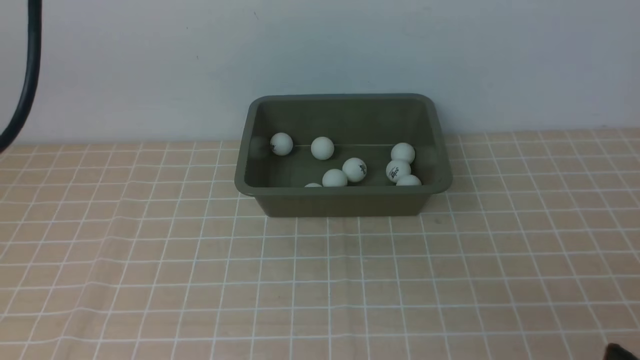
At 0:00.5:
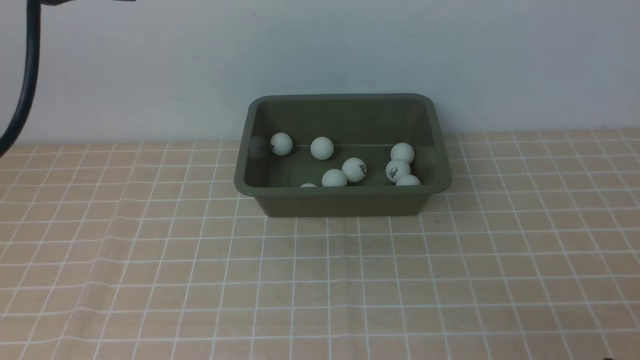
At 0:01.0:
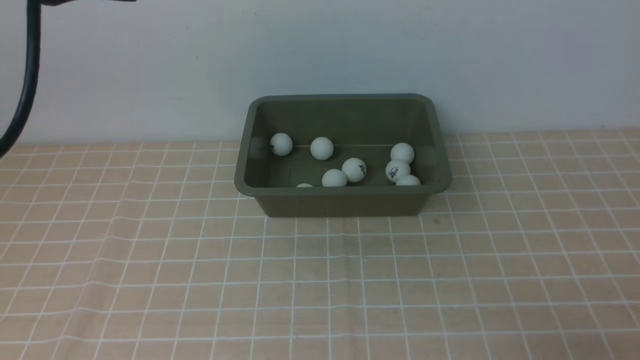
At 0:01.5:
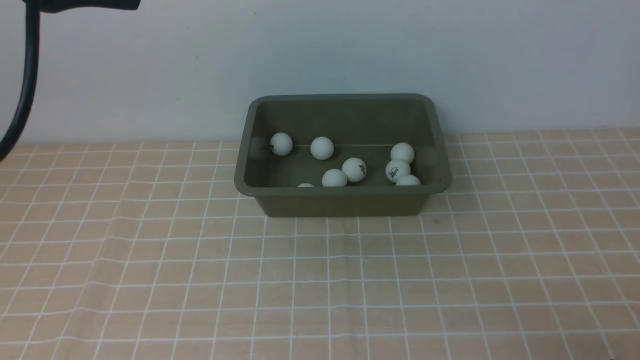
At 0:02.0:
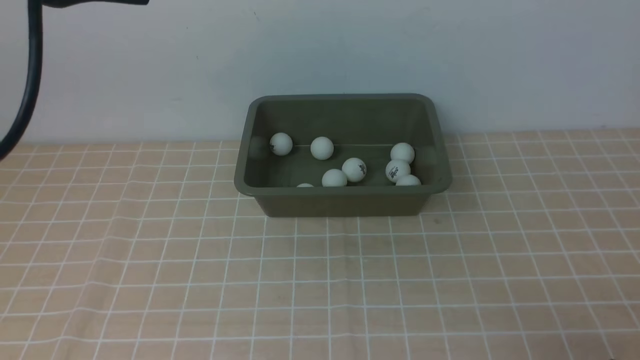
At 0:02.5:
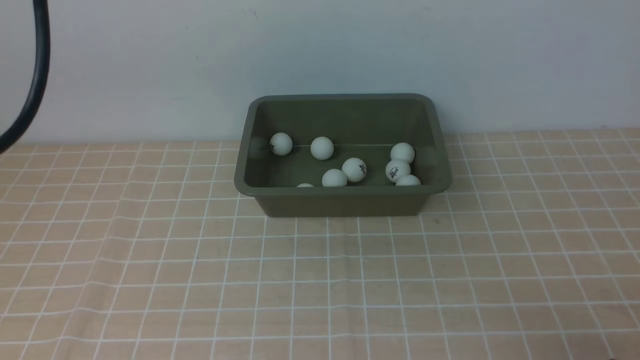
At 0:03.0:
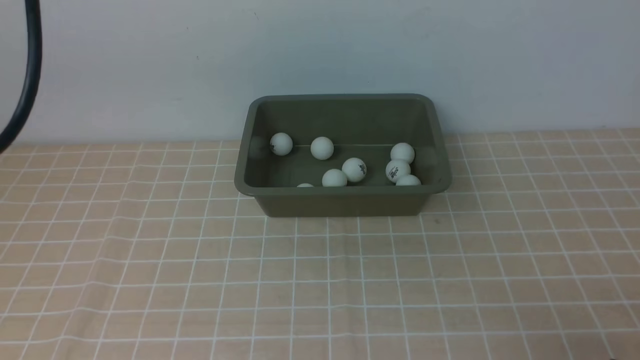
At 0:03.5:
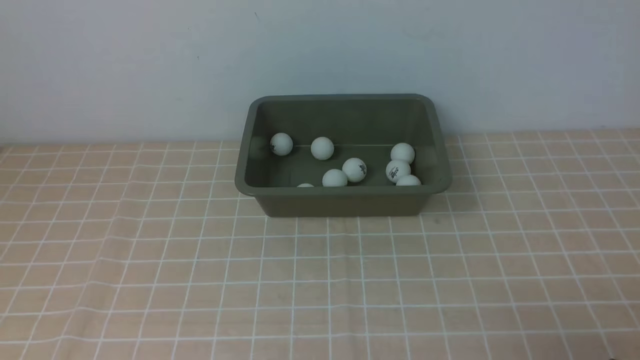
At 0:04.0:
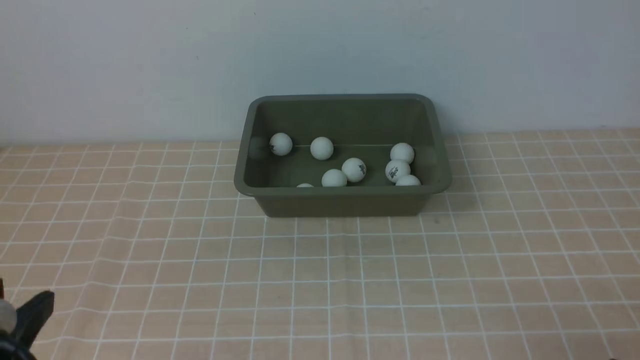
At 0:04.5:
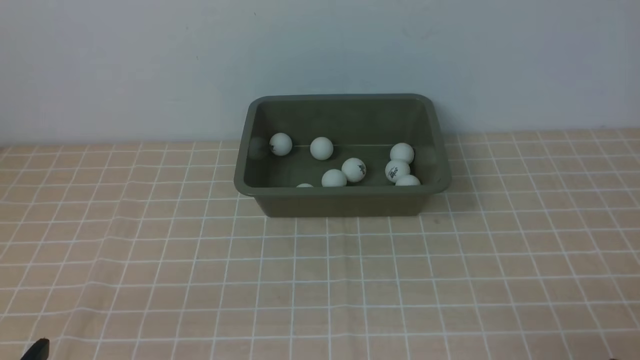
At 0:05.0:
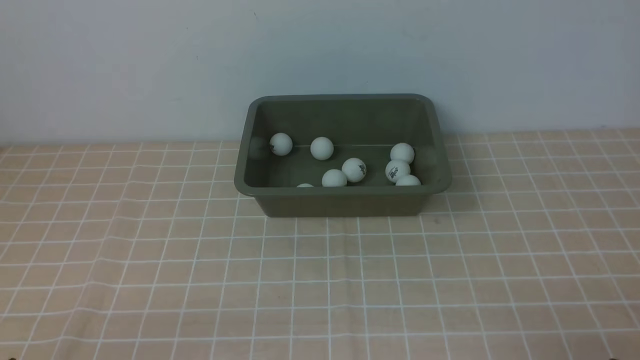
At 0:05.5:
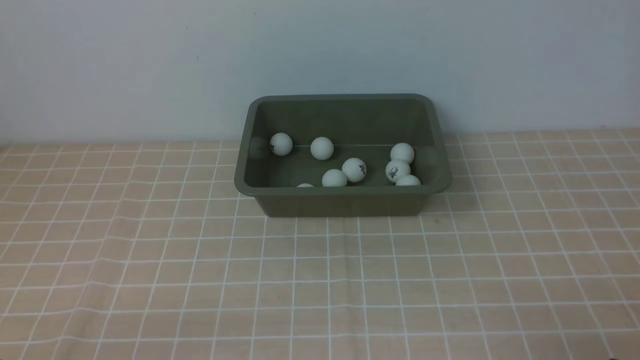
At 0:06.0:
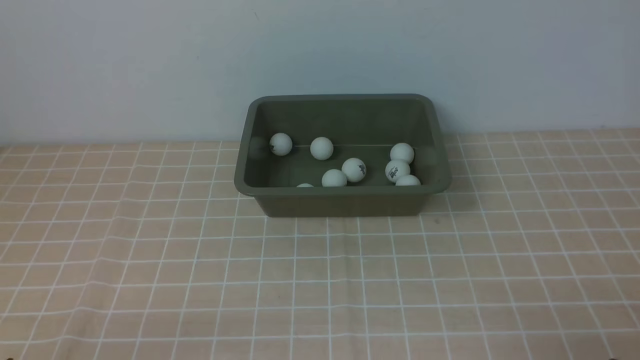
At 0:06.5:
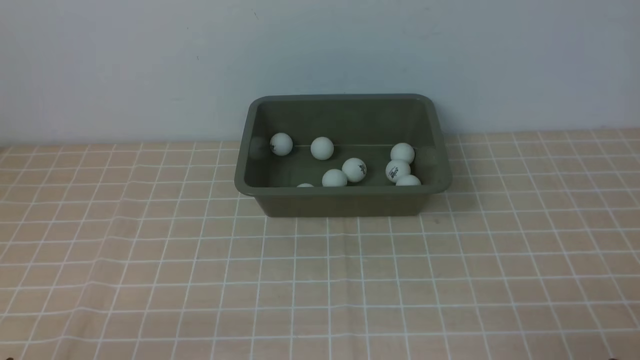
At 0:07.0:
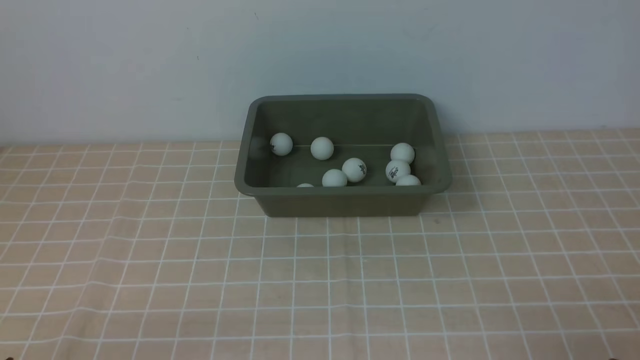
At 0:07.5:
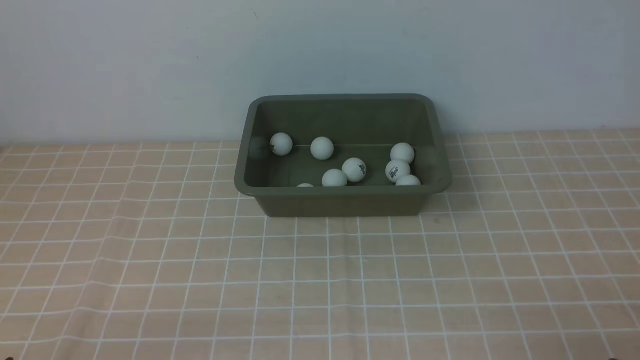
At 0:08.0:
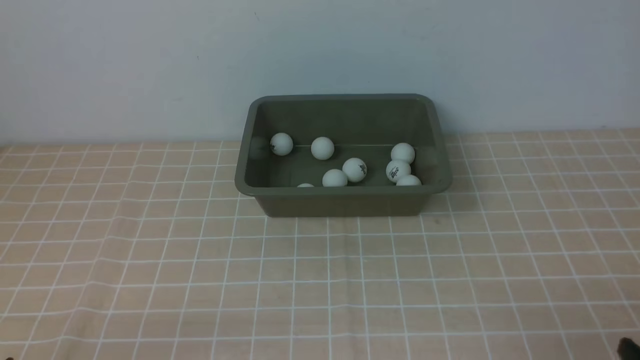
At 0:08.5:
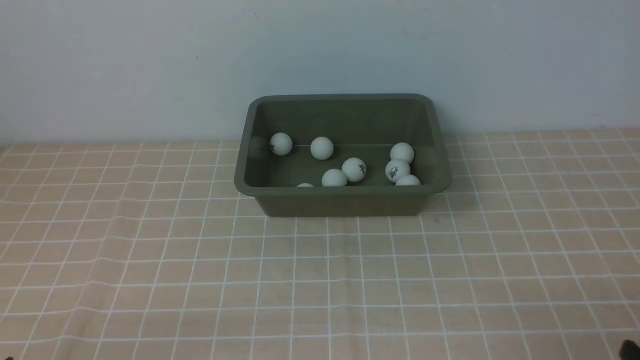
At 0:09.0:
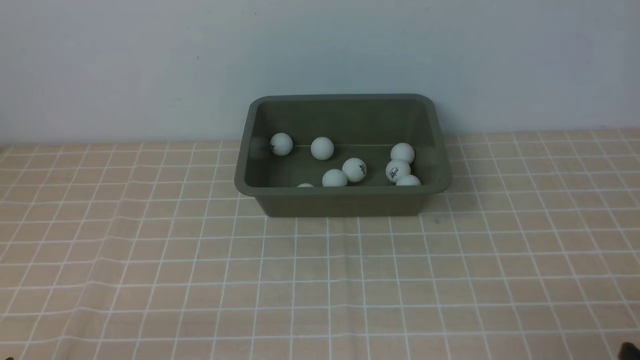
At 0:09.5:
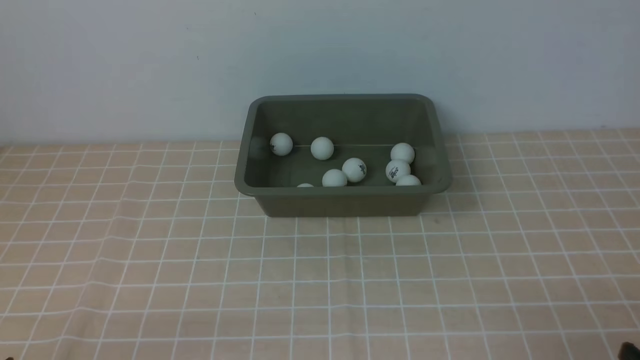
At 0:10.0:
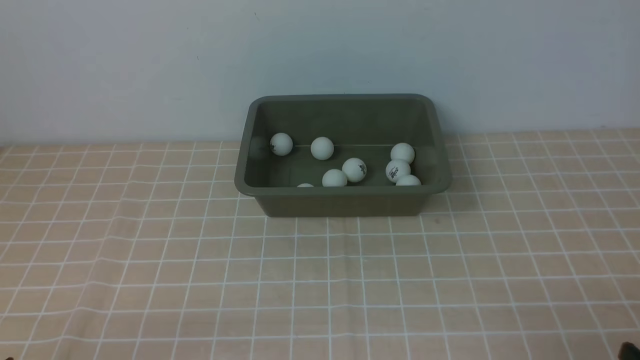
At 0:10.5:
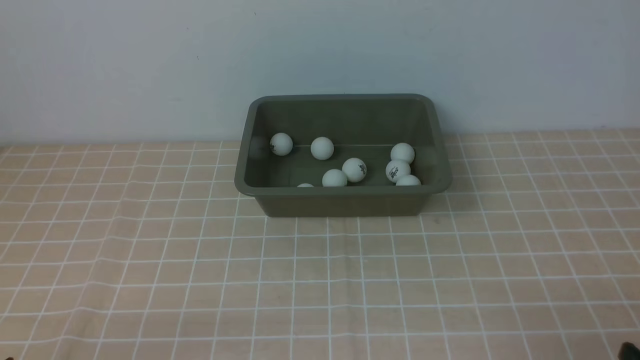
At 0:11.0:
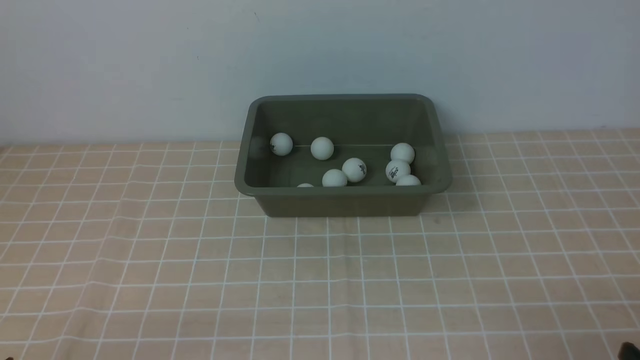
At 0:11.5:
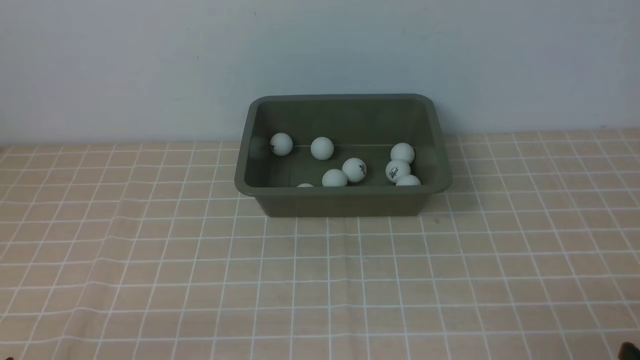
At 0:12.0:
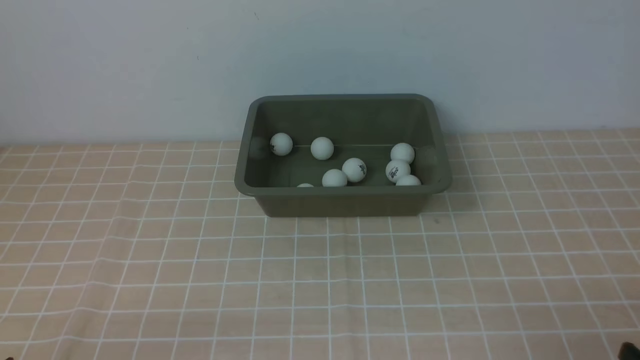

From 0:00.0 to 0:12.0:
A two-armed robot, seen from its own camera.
From 0:00.0 to 0:02.0: The grippers move only a little.
From 0:02.0 to 0:04.0: The left gripper is displaced downward and backward by roughly 25 cm.
From 0:04.0 to 0:06.0: The left gripper goes approximately 10 cm downward.
From 0:08.0 to 0:12.0: Both grippers stay about where they are.
